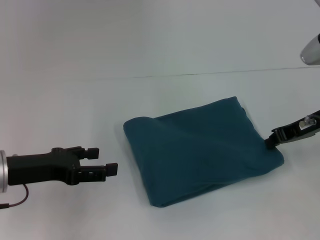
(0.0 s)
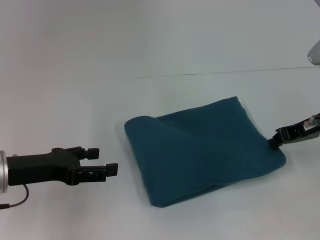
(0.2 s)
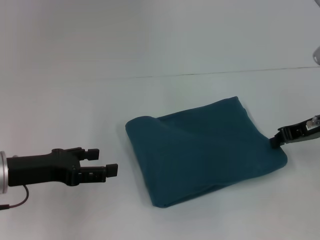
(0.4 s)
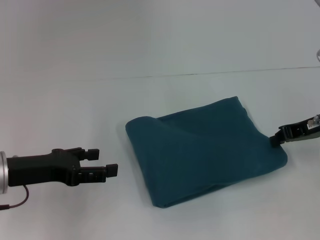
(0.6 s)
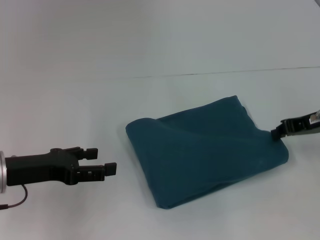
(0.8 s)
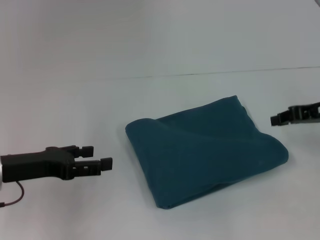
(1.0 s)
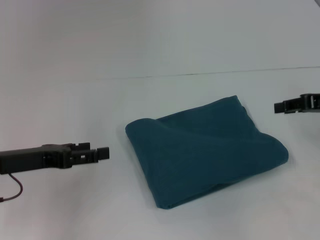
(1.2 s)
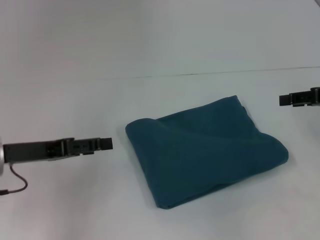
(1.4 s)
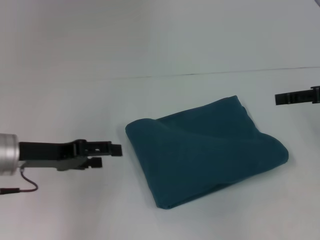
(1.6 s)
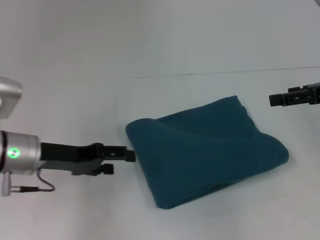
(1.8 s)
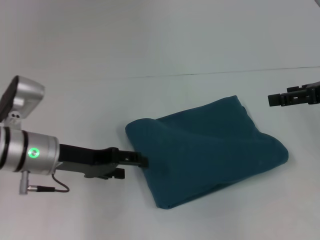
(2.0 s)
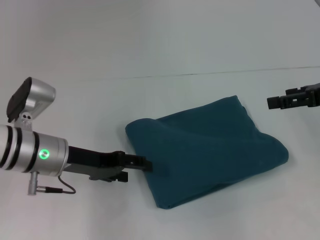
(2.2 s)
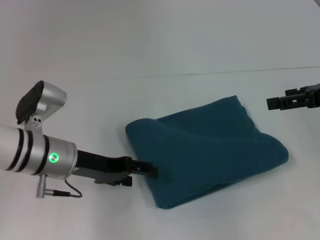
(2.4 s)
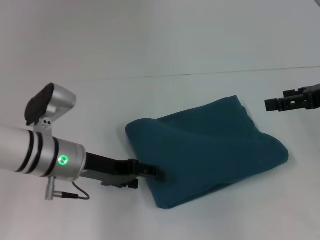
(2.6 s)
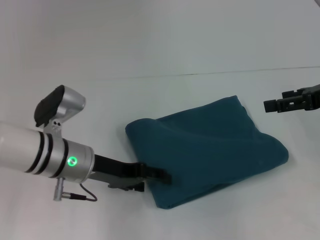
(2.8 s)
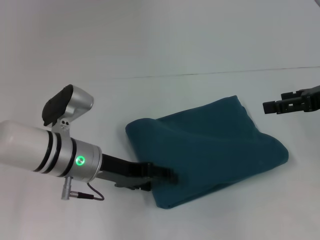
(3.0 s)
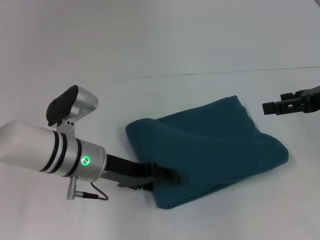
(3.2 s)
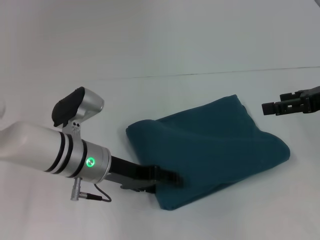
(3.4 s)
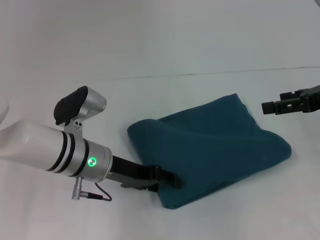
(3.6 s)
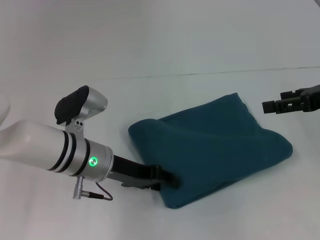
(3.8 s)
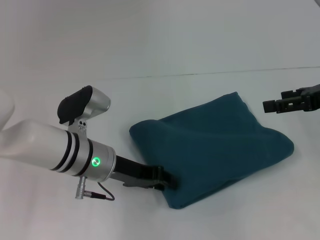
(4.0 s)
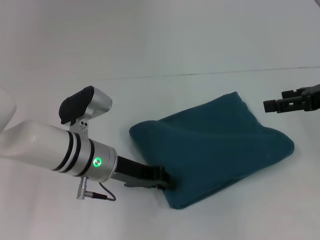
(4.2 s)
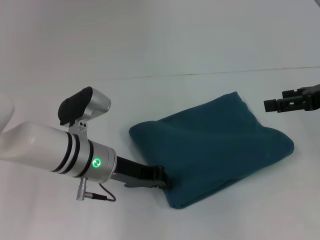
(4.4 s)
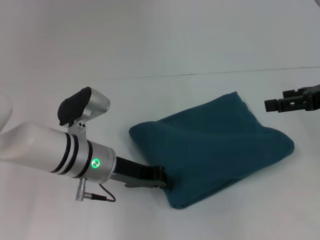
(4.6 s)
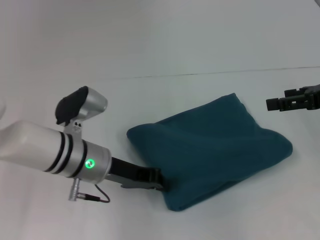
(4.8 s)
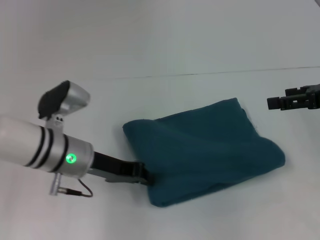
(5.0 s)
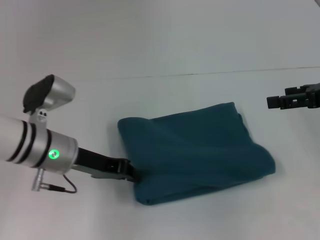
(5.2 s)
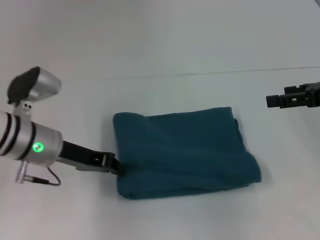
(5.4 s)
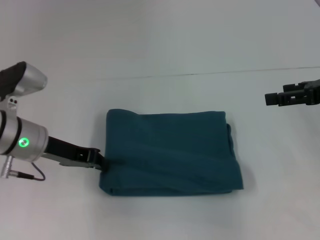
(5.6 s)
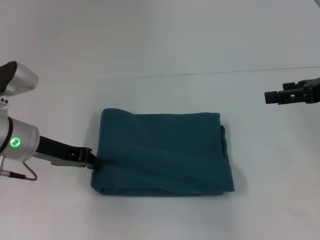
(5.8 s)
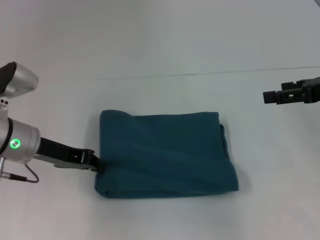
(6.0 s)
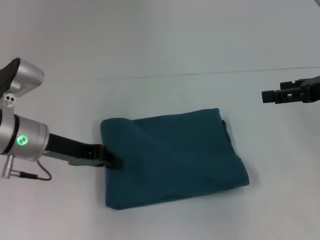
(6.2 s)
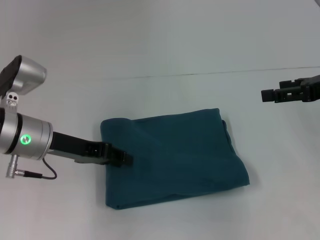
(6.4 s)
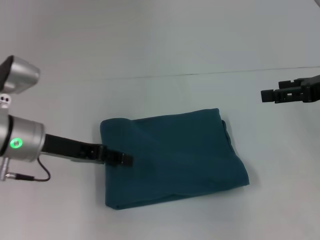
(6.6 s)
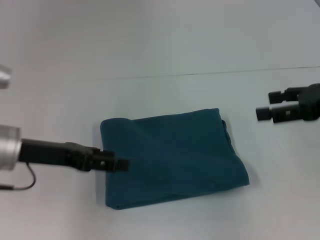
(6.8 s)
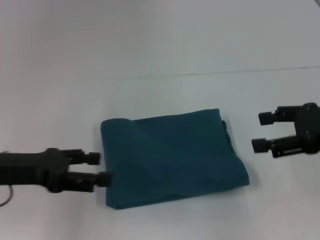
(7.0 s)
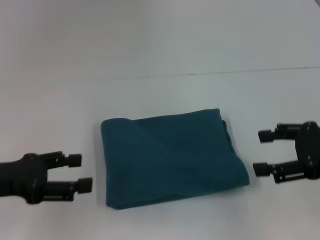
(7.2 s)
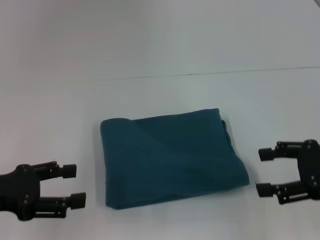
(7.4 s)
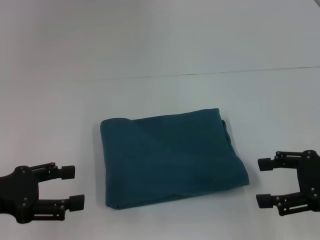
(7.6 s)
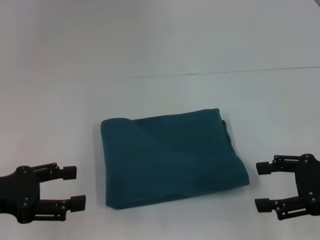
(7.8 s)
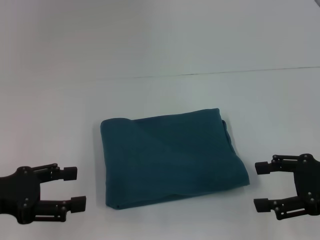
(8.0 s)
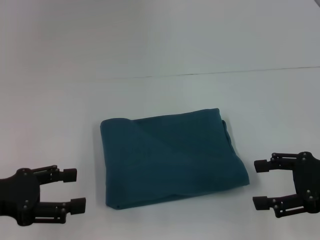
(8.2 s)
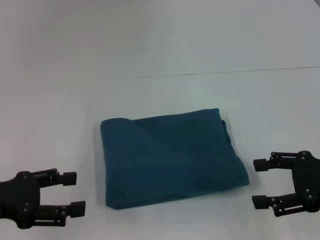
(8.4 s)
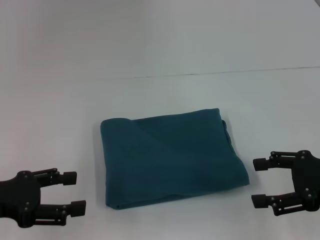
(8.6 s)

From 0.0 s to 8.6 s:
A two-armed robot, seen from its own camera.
From 0.0 s to 1.4 s: The right gripper travels to the right by some 5 cm.
From 1.4 s to 2.8 s: The right gripper opens. The left gripper shifts some 10 cm to the right.
From 2.8 s to 4.4 s: The left gripper closes.
From 4.4 s to 5.8 s: The left gripper goes about 10 cm to the left.
From 5.8 s to 7.2 s: The right gripper travels backward by some 5 cm. Meanwhile the left gripper travels backward and to the left by approximately 10 cm, and opens.
From 7.2 s to 8.6 s: The grippers make only small movements.

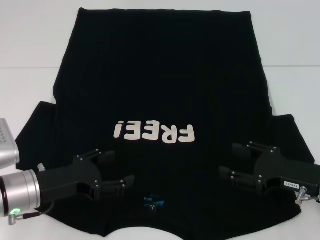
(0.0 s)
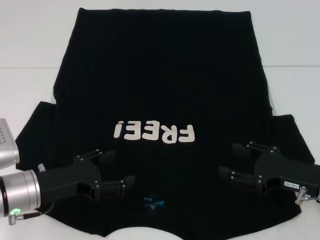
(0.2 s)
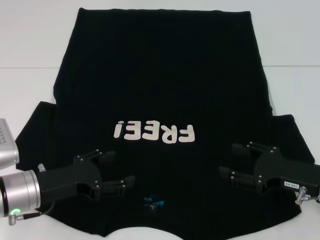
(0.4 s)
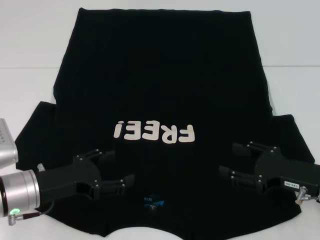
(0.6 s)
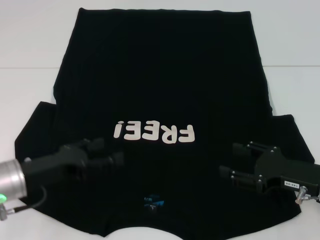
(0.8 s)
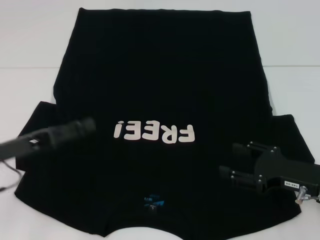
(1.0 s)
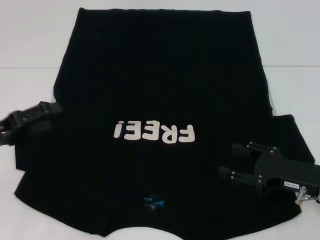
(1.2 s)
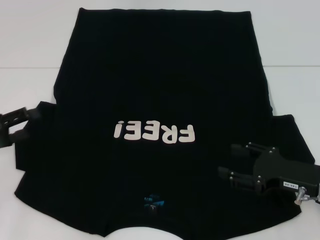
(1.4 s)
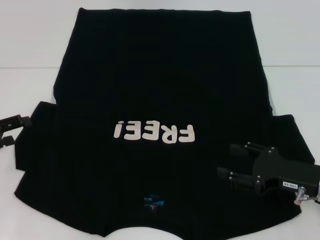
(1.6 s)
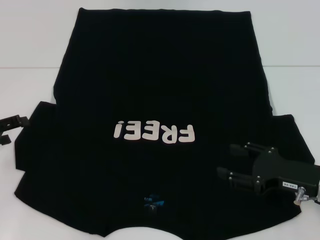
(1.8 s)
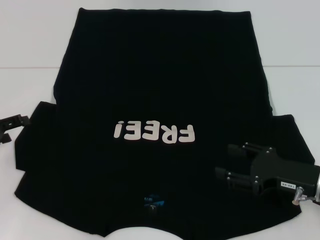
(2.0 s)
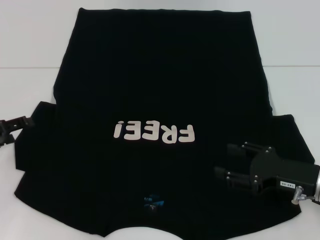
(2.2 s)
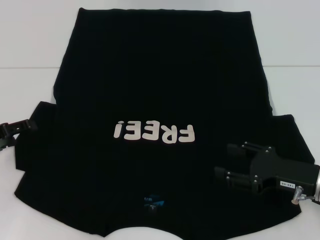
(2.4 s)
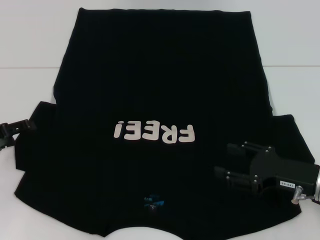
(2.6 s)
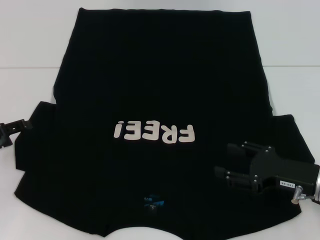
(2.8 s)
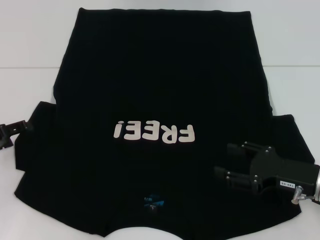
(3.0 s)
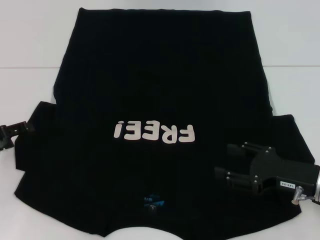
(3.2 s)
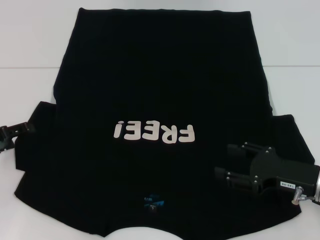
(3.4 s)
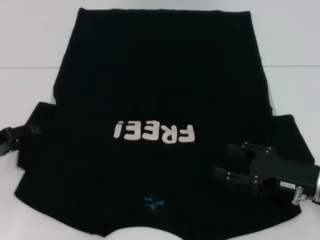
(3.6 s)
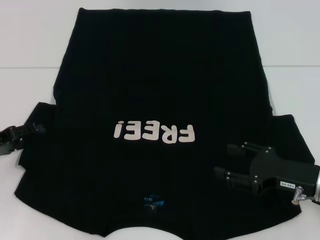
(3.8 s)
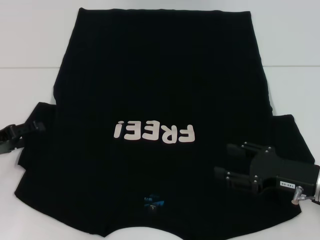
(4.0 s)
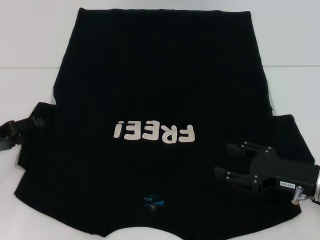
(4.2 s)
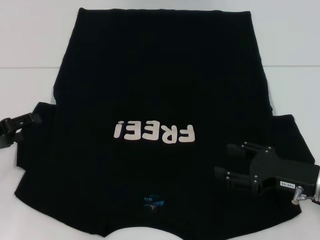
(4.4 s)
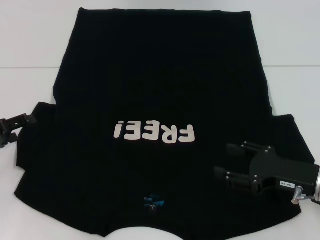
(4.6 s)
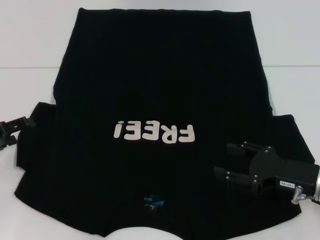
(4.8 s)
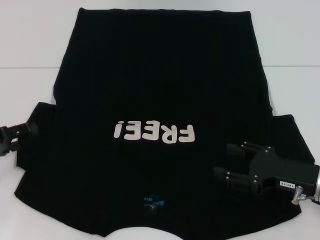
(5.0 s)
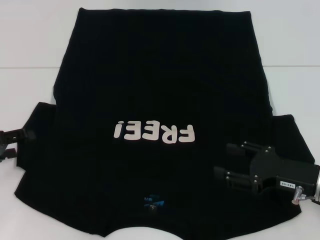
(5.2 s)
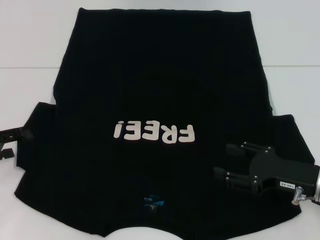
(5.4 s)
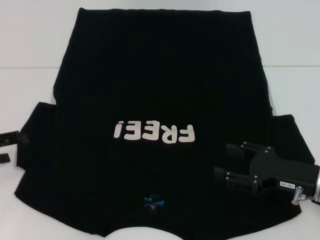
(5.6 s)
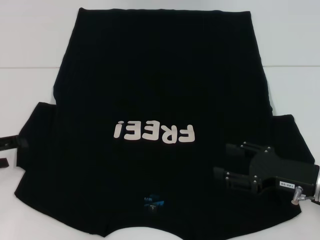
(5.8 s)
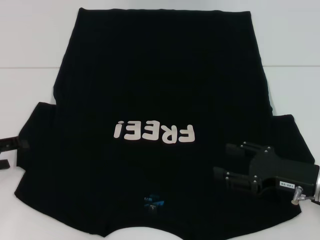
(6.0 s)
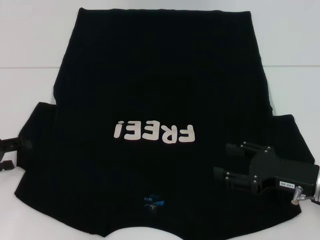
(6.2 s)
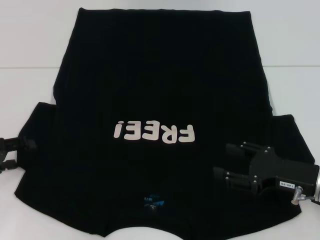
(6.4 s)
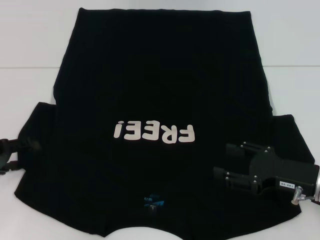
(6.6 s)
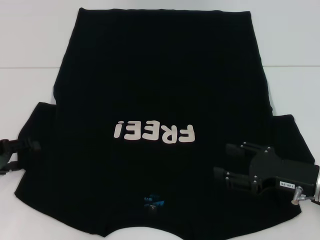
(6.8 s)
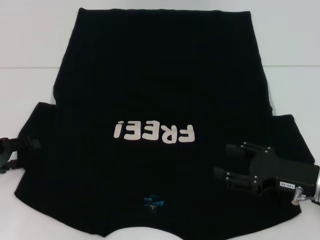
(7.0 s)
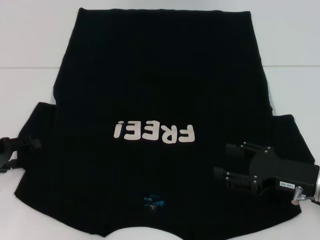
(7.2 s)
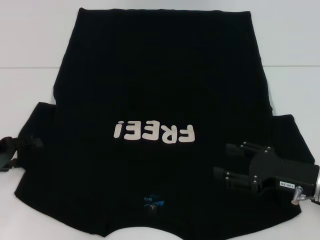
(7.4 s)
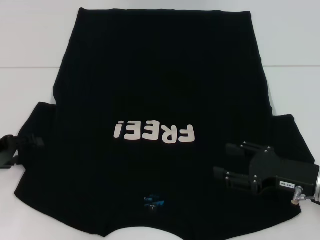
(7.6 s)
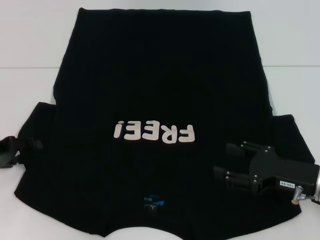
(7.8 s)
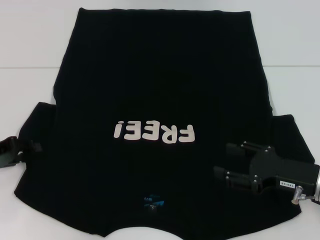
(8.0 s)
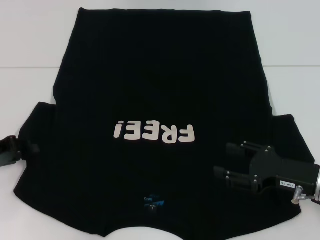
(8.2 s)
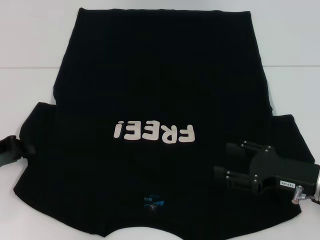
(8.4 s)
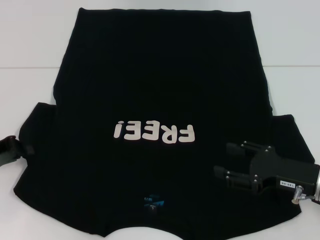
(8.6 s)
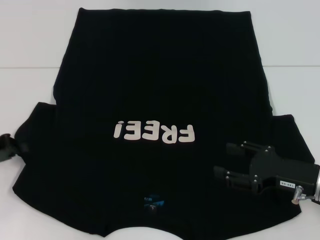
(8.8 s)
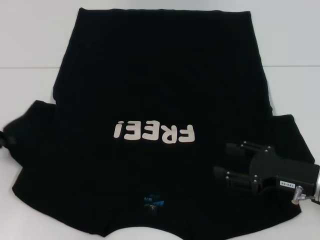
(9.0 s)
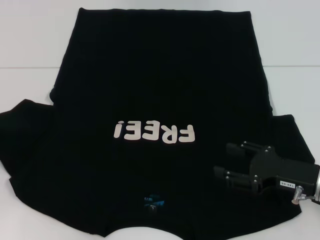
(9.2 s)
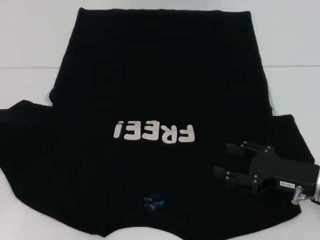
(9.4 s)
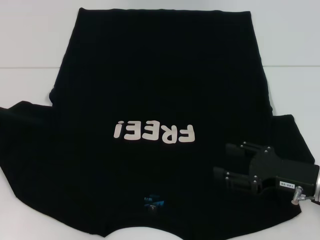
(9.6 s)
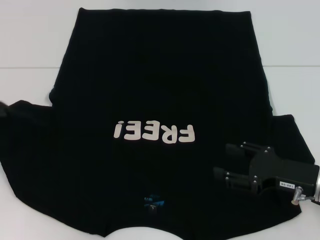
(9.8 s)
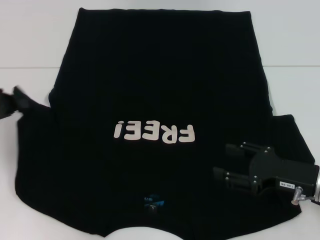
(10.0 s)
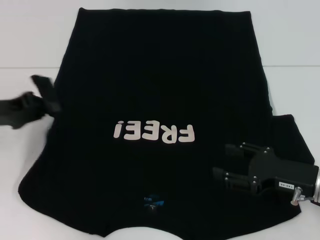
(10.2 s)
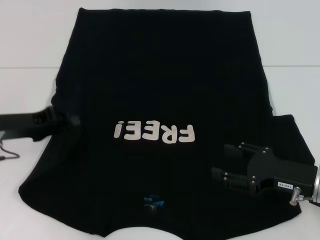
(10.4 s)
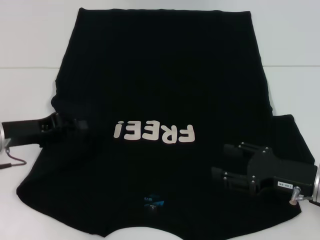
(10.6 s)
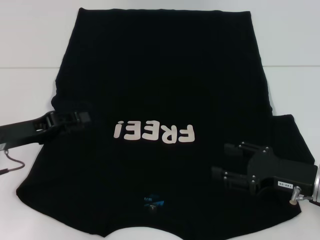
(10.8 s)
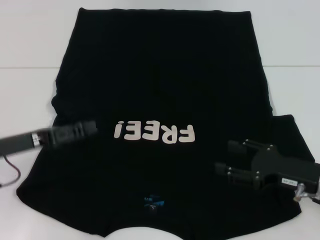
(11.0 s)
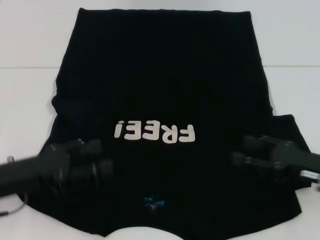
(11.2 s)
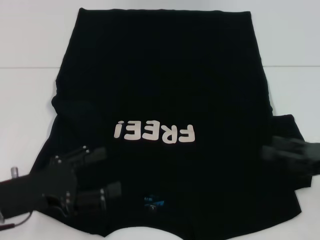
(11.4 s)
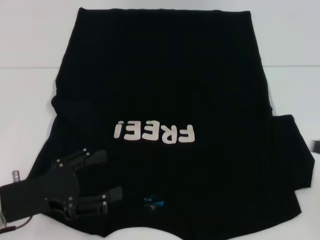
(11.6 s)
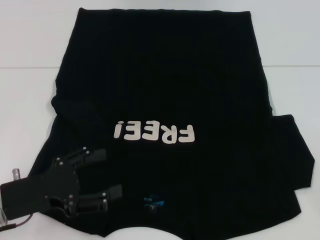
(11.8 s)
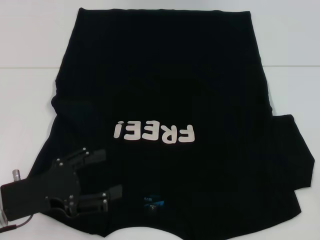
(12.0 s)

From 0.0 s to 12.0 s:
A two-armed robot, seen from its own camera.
Step, from 0.0 s to 11.4 s: Fold the bottom left sleeve with your left hand.
From 0.0 s to 1.6 s: The left gripper heads to the left, covering some 15 cm.
From 1.6 s to 3.0 s: There are only small adjustments of the grippers.
From 4.4 s to 6.0 s: The grippers make only small movements.
From 7.6 s to 9.0 s: The left gripper closes.
From 9.0 s to 10.4 s: The left gripper moves to the right, approximately 10 cm.
From 10.4 s to 12.0 s: The left gripper shifts some 10 cm backward, and opens its fingers, while the right gripper is displaced to the right and upward by roughly 20 cm.

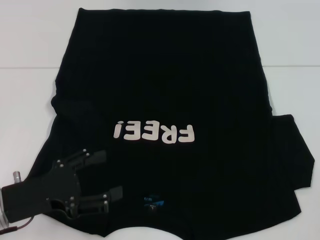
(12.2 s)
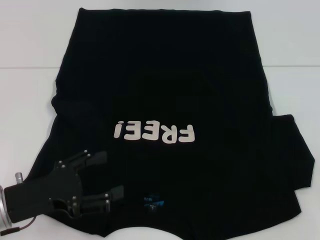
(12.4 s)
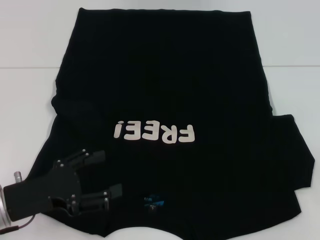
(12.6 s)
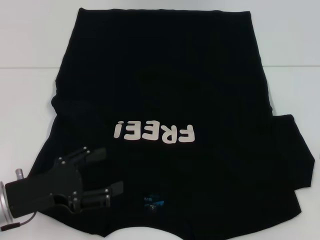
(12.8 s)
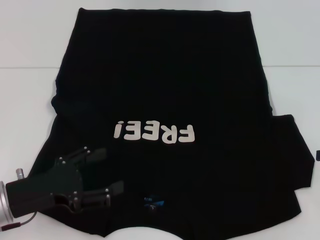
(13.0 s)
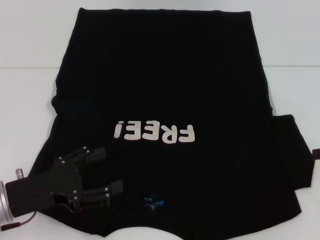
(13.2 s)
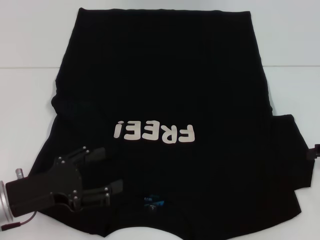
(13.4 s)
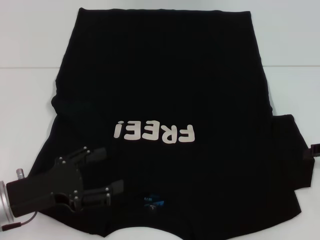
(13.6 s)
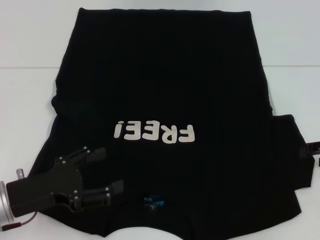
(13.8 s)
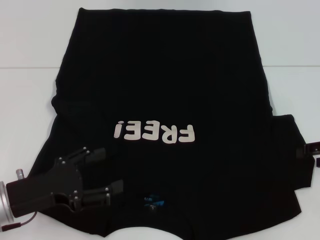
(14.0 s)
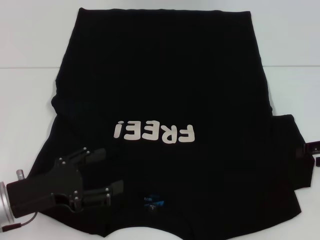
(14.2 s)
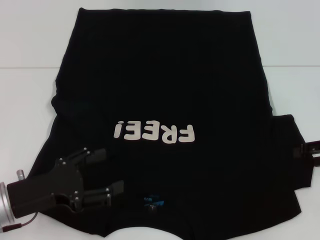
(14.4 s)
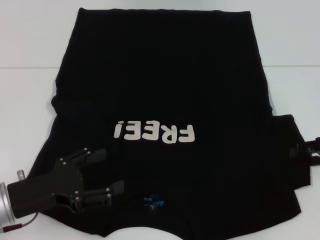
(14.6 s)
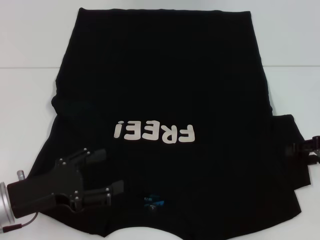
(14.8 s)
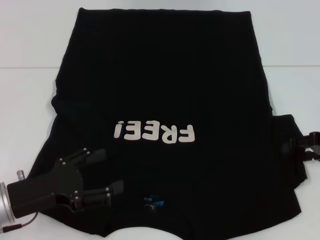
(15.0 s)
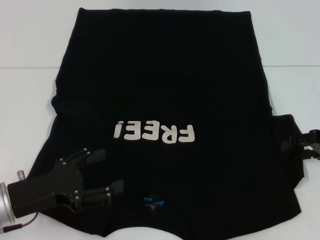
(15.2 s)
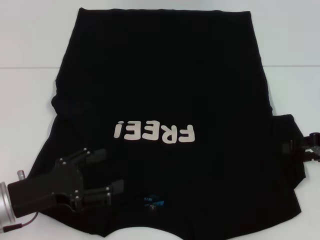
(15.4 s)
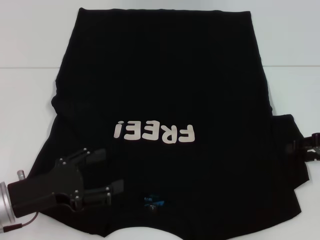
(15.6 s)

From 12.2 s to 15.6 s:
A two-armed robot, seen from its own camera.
From 12.2 s to 13.8 s: The right gripper is displaced forward and to the left by roughly 10 cm.
From 13.8 s to 15.6 s: The grippers stay close to where they were, moving slightly.
